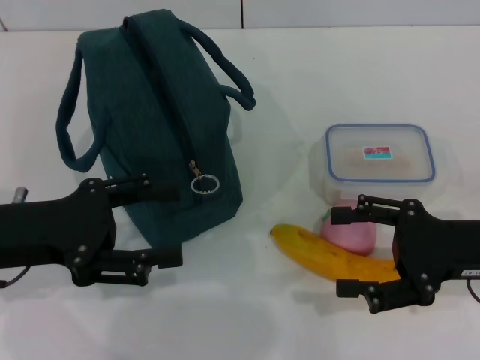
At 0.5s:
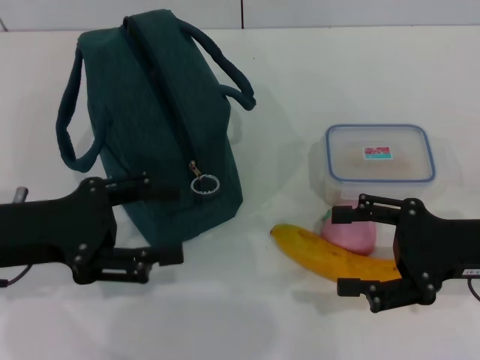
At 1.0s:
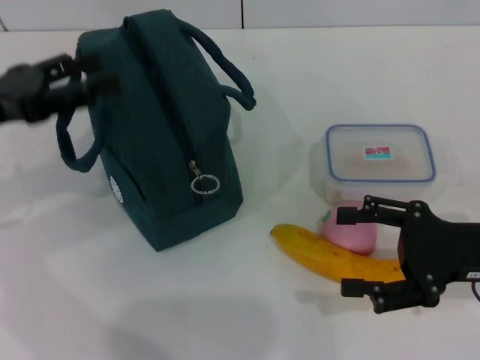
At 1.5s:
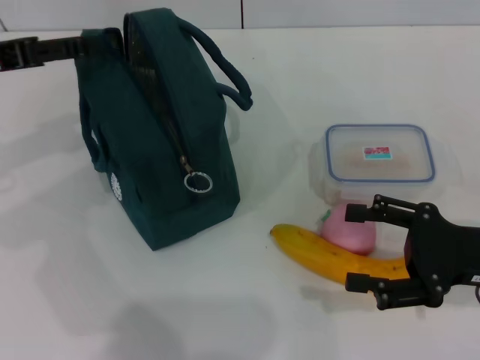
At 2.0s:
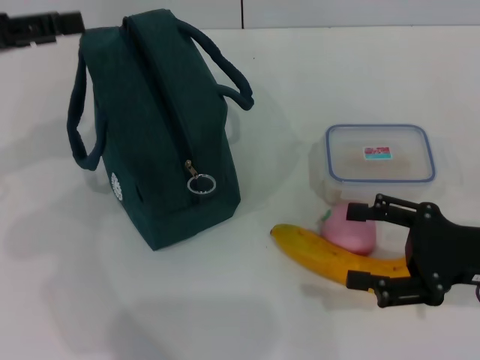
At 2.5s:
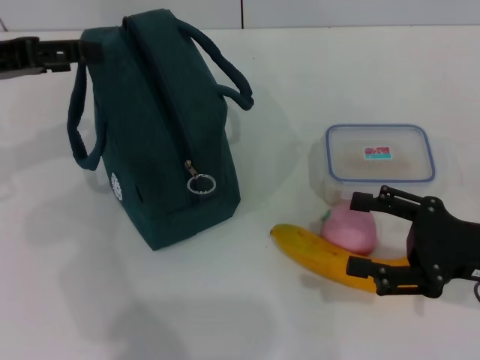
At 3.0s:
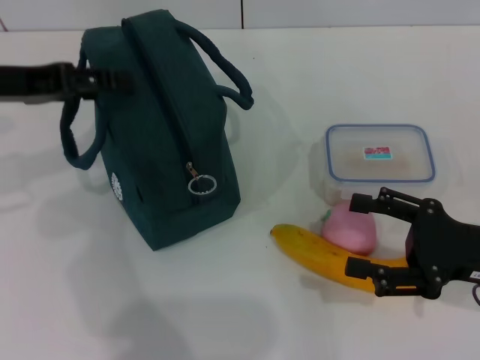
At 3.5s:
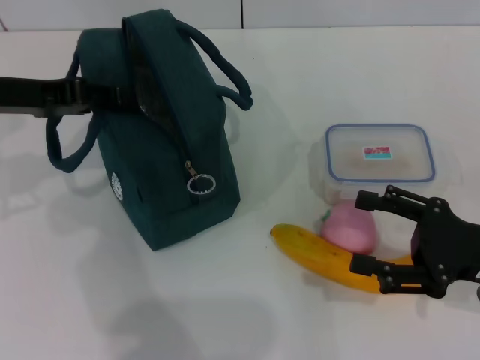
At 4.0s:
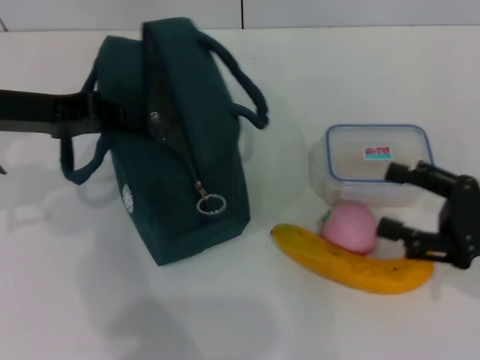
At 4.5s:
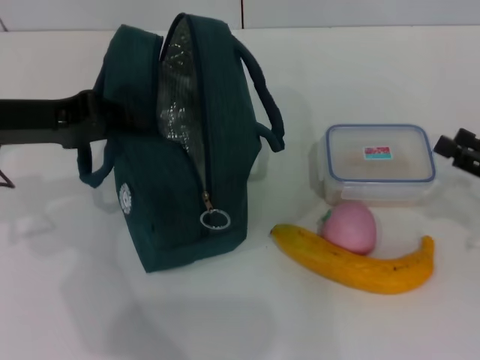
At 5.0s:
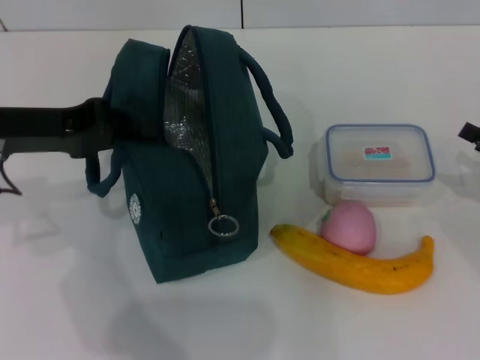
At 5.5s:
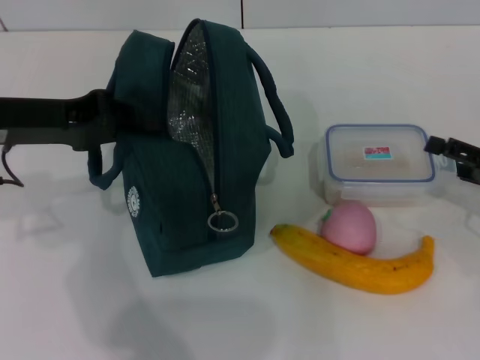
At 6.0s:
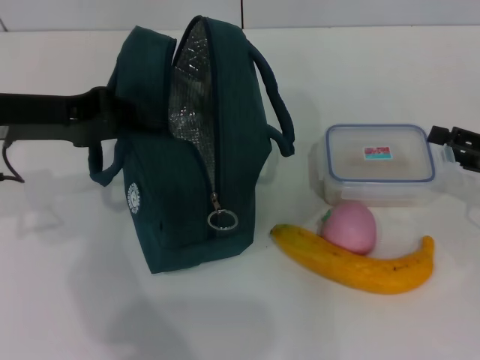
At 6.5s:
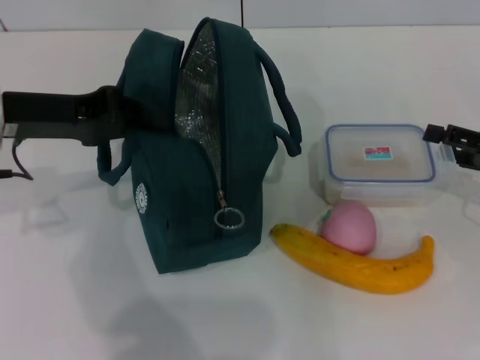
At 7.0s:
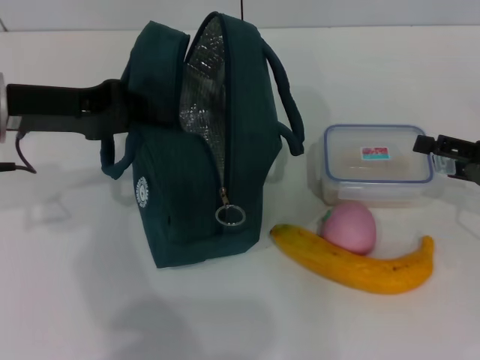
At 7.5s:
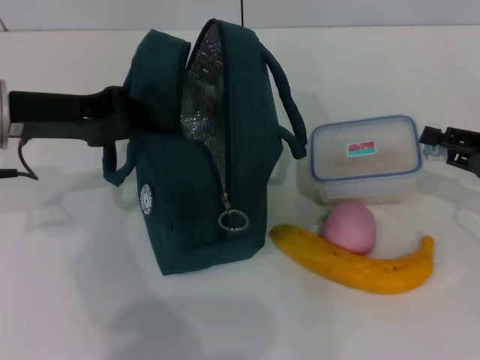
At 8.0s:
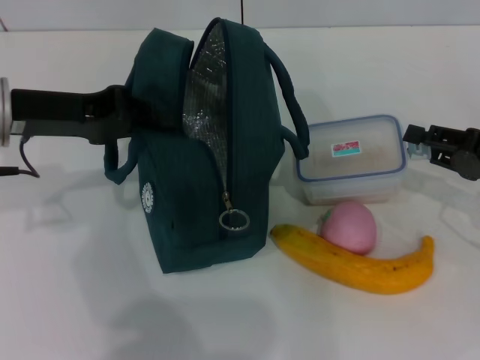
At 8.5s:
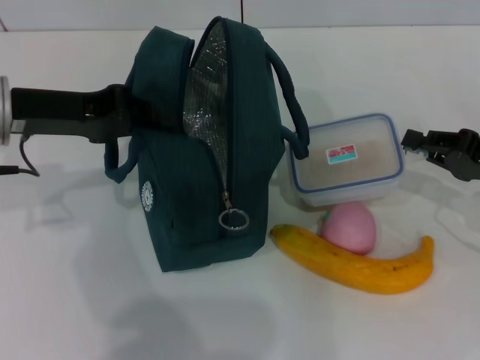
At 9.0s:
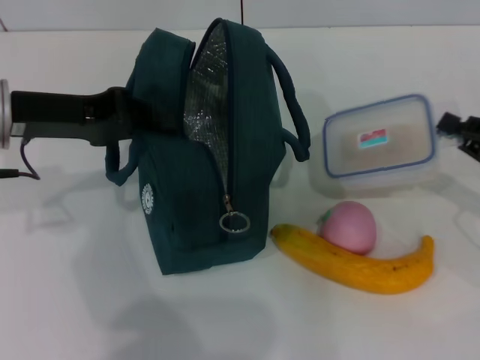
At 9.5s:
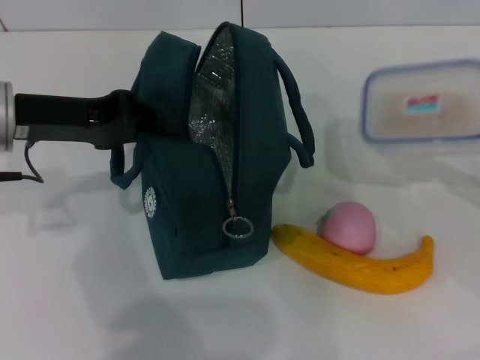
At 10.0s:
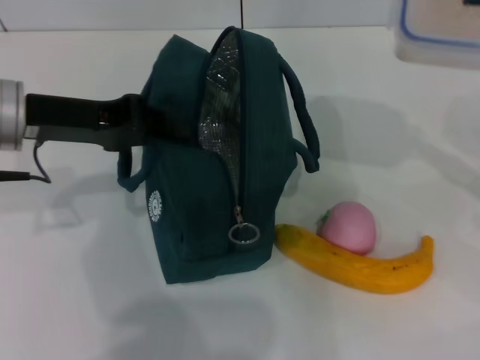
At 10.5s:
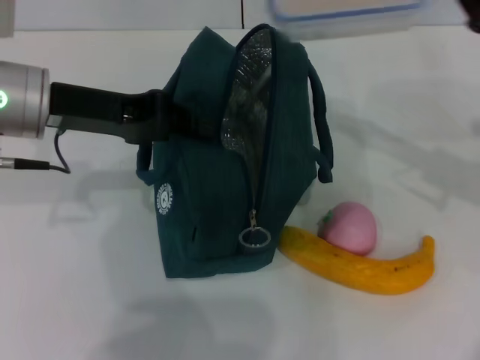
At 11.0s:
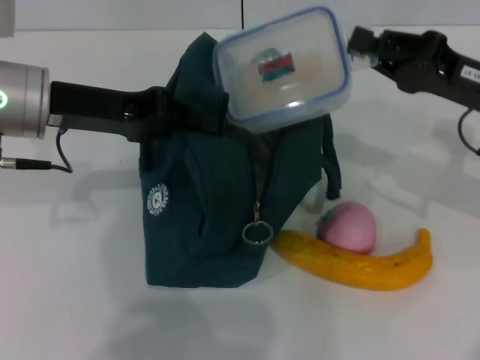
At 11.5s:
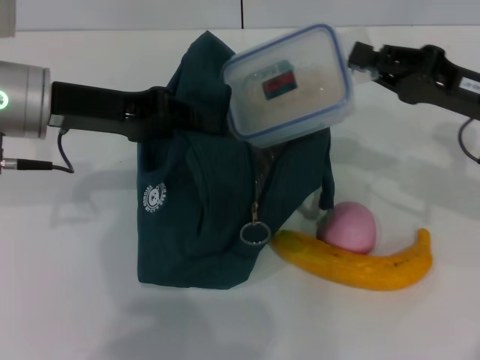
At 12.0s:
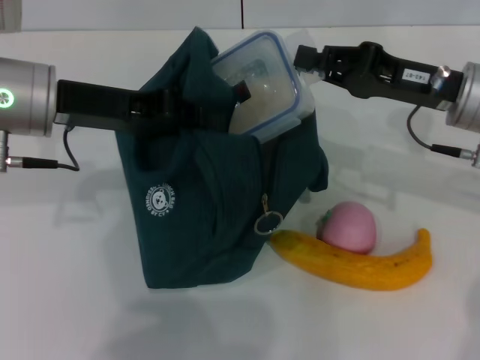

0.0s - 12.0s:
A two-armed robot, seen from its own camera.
Step, 0.0s - 4.0s: Hold the lunch bag with your left hand.
Step, 4.5s - 7.5s: Pick up the lunch box with your right hand.
0.0s - 2.0s: The left gripper travels upward, forward and to the left by roughly 15 cm.
2.0s - 4.0s: The left gripper moves to the right, some 5 cm, and closes up.
4.0s - 6.0s: The right gripper moves forward and to the right, roughly 10 cm.
6.0s - 8.0s: The right gripper closes.
8.0s - 10.0s: The right gripper moves upward, roughly 5 cm.
10.0s - 12.0s: The right gripper heads to the left and forward, covering approximately 20 cm.

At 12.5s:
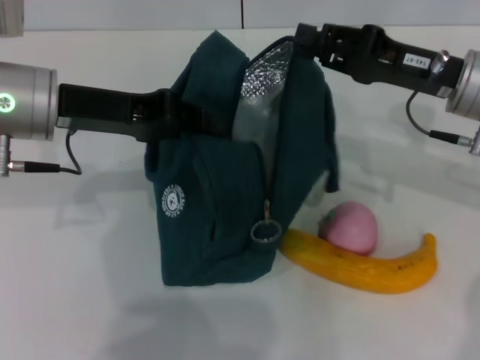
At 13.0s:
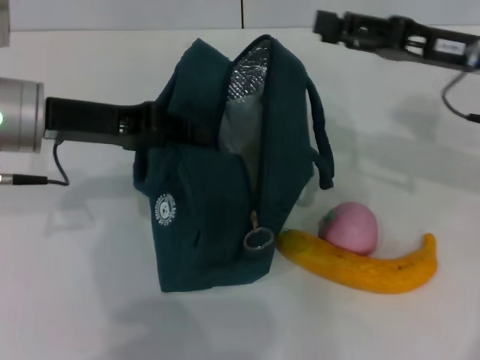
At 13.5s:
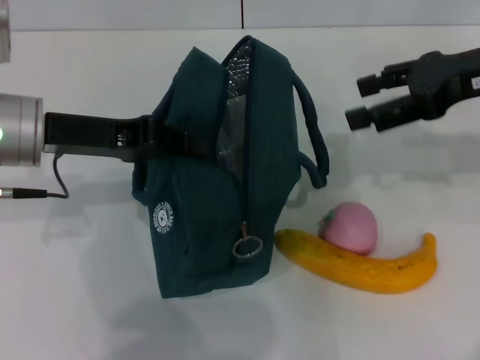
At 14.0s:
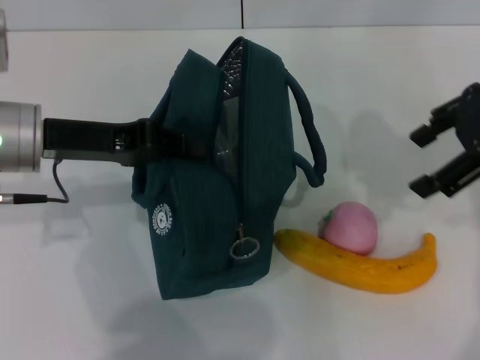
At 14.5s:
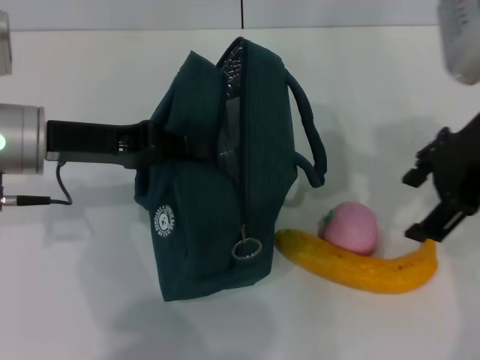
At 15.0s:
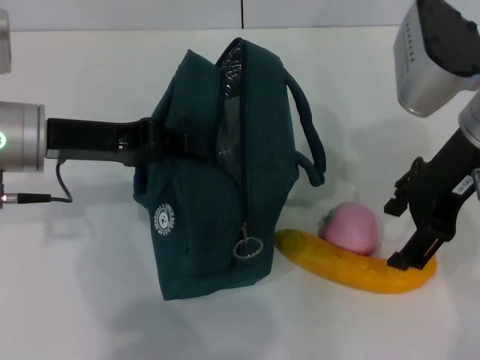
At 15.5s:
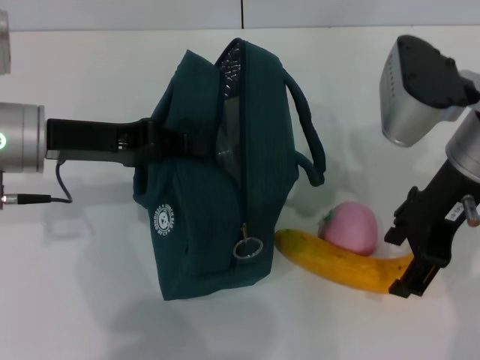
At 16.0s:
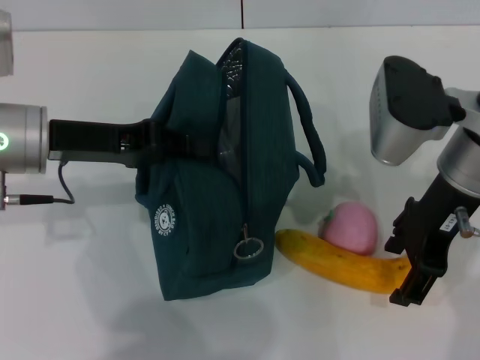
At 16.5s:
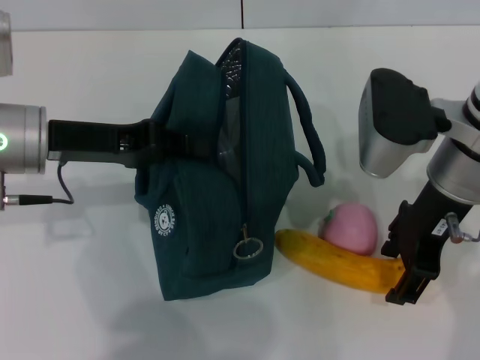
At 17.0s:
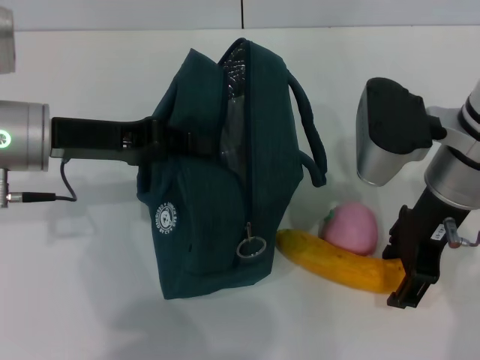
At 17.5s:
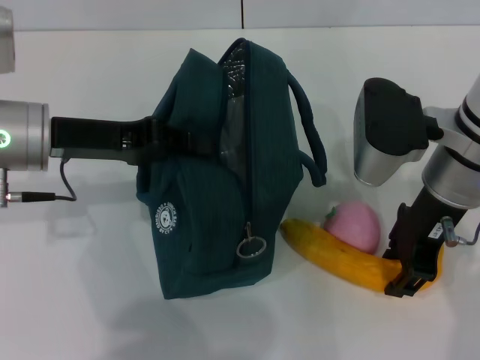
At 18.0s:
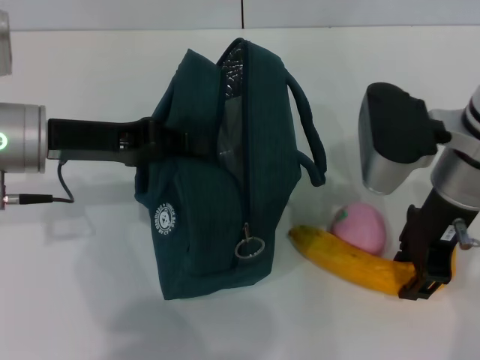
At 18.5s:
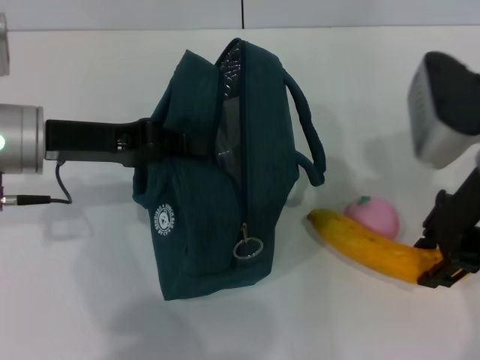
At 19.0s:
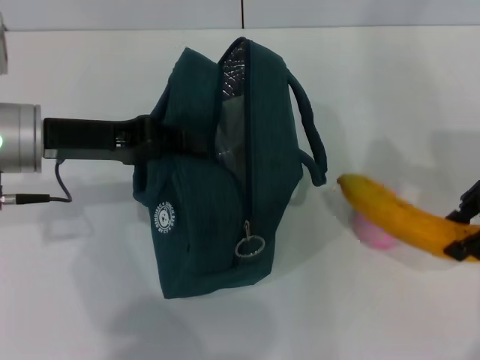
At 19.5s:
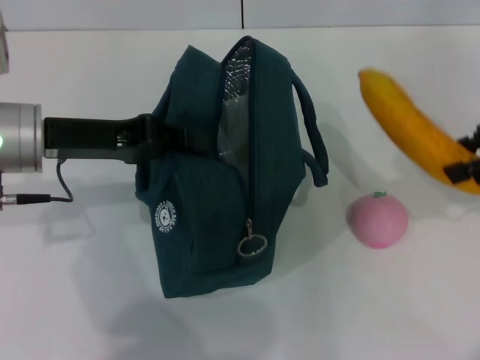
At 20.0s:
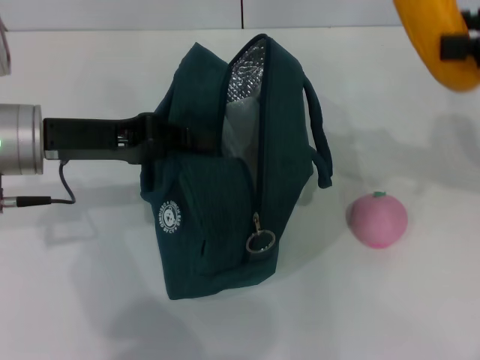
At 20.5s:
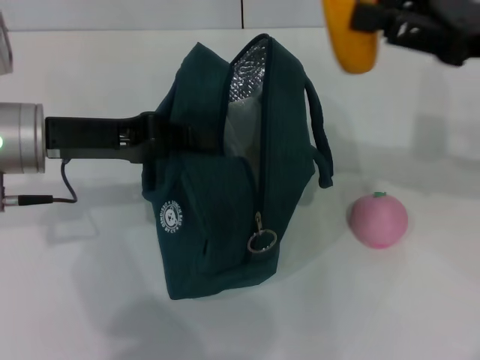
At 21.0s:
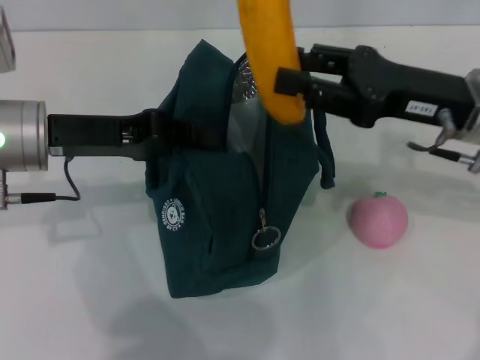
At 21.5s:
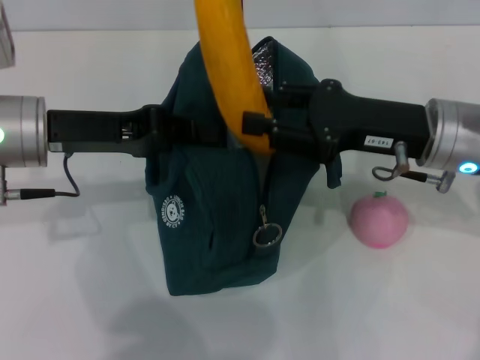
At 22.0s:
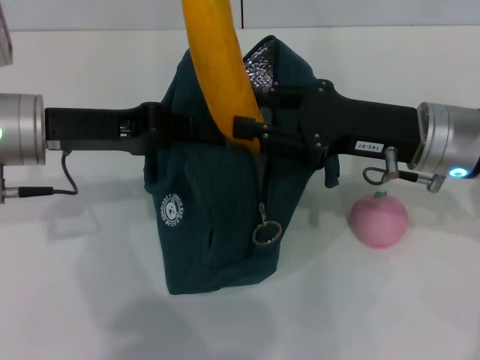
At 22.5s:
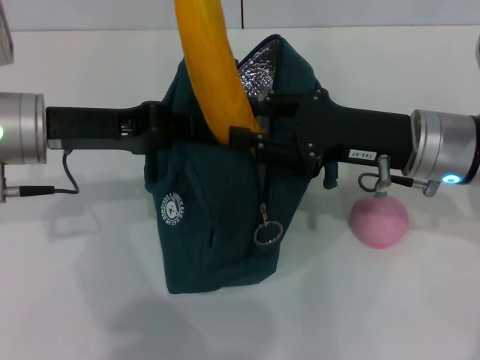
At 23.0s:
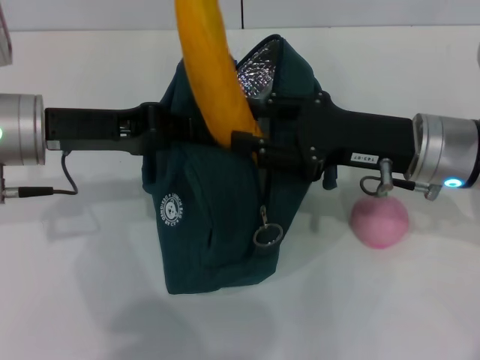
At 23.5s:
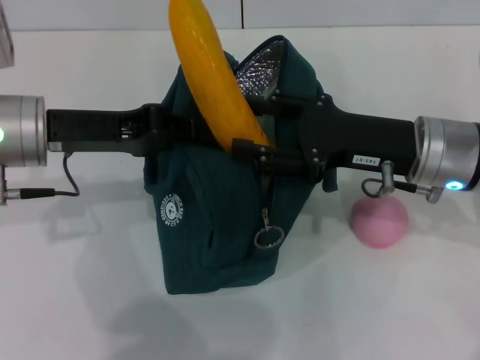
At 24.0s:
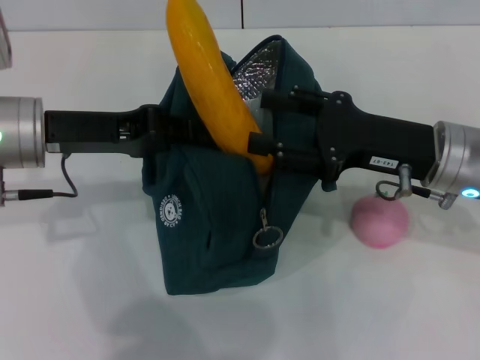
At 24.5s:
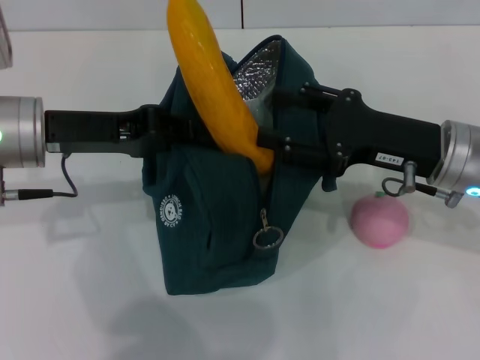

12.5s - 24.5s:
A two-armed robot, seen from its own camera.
Step, 13.5s - 17.0s: Take the banana with your right hand.
12.5s - 14.5s: The right gripper goes approximately 10 cm upward, and opens.
14.5s - 16.5s: The right gripper is displaced downward by approximately 5 cm.
16.5s - 18.5s: The grippers stay close to where they were, moving slightly.
18.5s - 20.5s: The right gripper heads to the right, covering roughly 5 cm.
20.5s - 22.5s: The right gripper is displaced to the left and downward by roughly 10 cm.
22.5s - 24.5s: There are only small adjustments of the grippers.

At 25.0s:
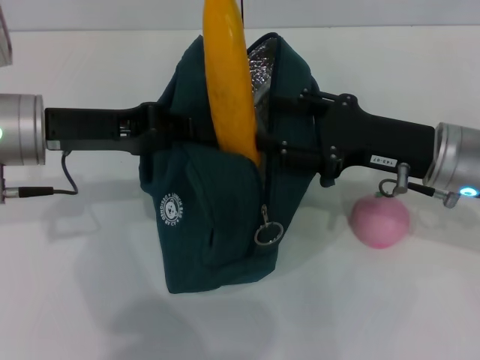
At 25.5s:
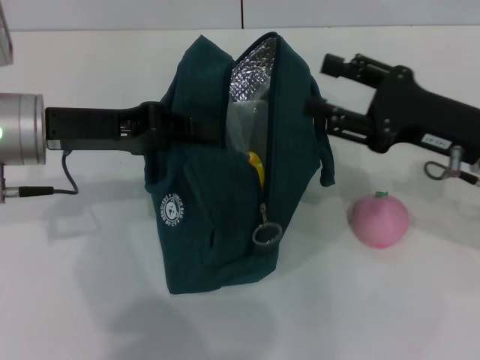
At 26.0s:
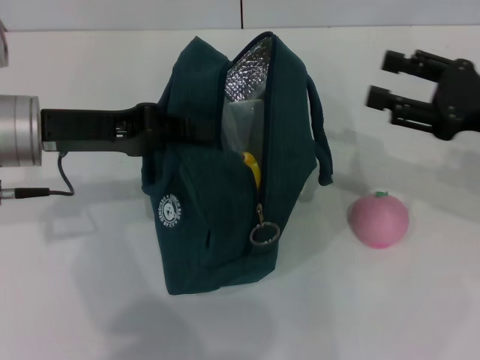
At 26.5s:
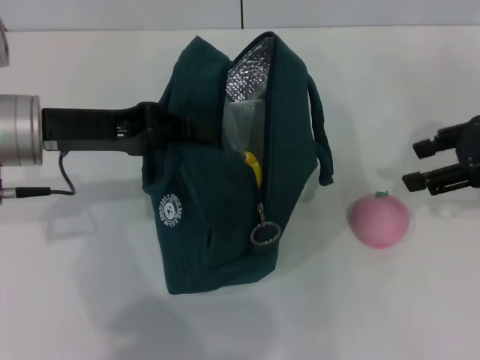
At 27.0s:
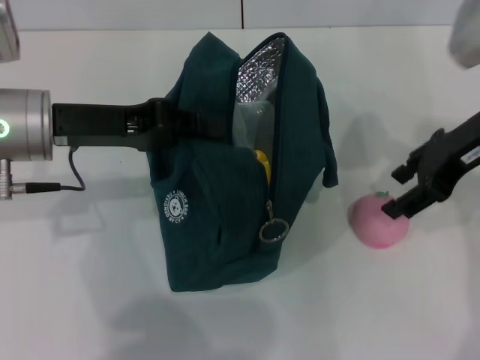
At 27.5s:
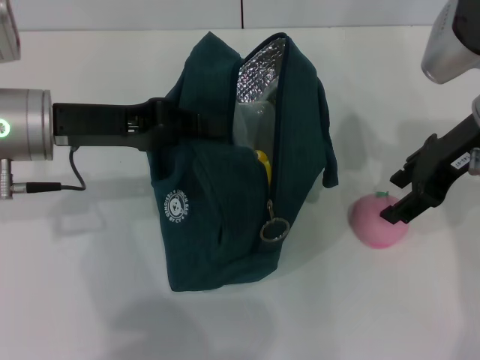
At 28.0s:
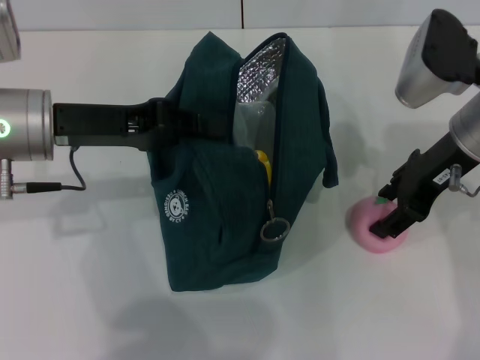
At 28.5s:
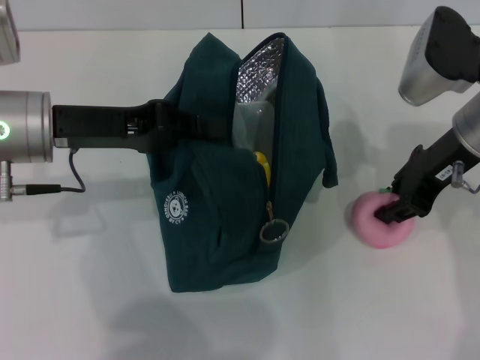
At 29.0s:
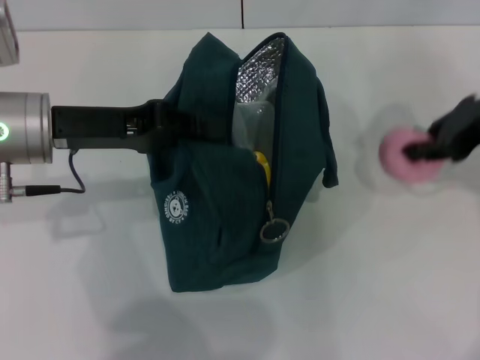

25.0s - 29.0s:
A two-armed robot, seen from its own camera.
Step, 26.0s - 28.0s: Grab the peach with your right hand.
25.0s - 27.0s: The right gripper heads upward, covering approximately 10 cm, and moves some 10 cm to the right and comes back.
27.0s - 29.0s: The right gripper closes.
